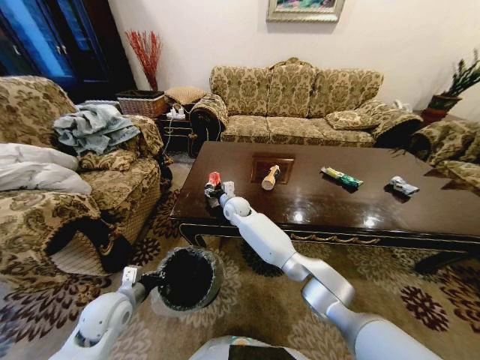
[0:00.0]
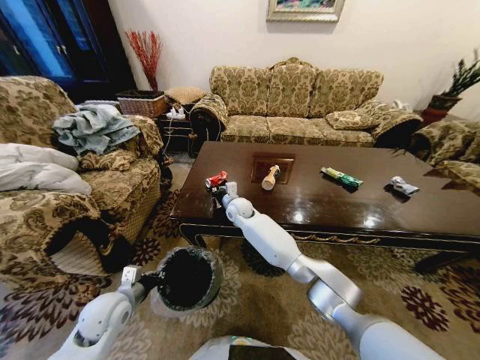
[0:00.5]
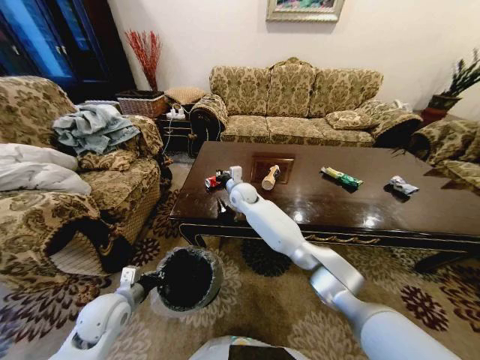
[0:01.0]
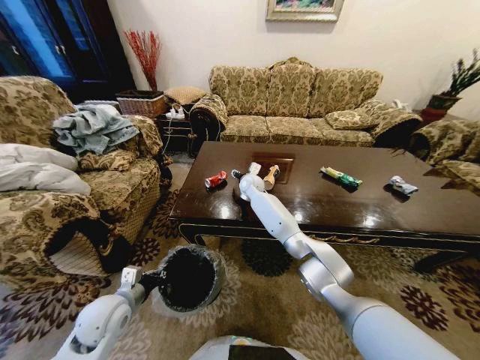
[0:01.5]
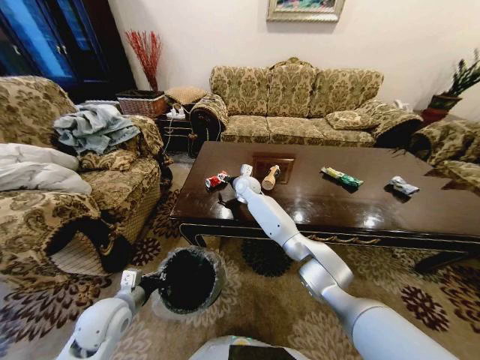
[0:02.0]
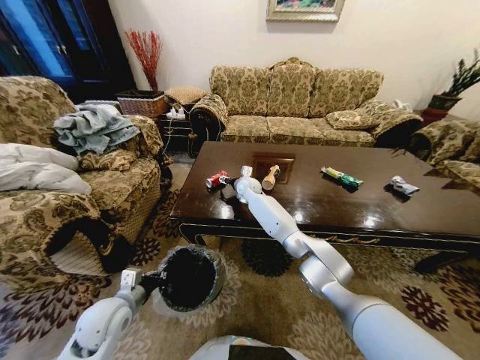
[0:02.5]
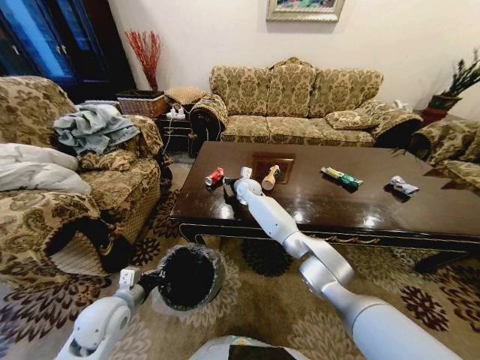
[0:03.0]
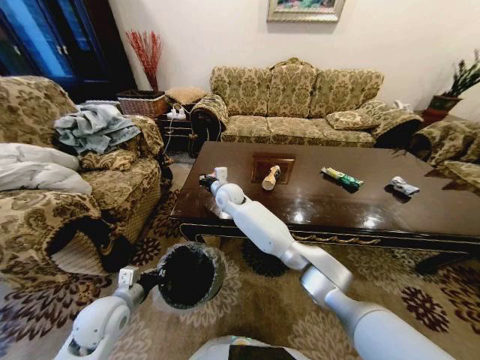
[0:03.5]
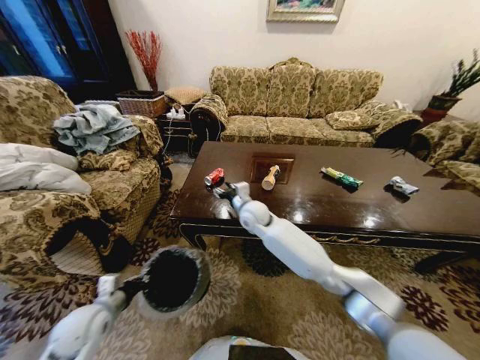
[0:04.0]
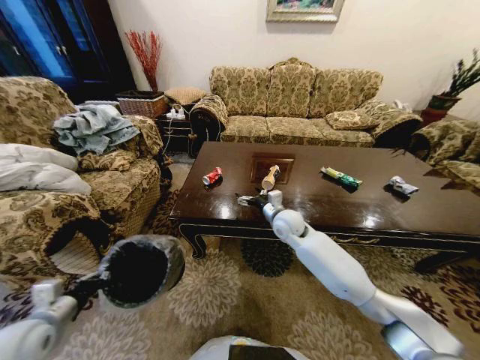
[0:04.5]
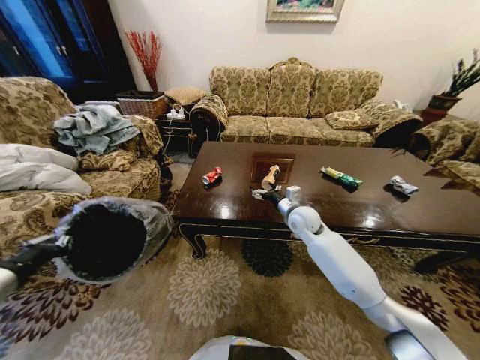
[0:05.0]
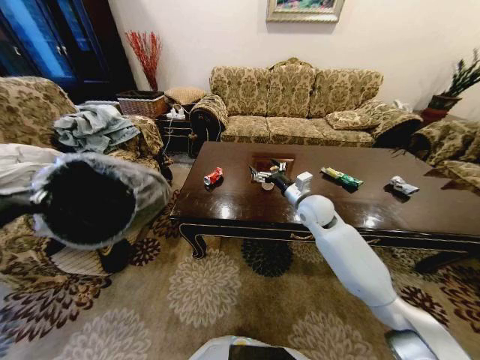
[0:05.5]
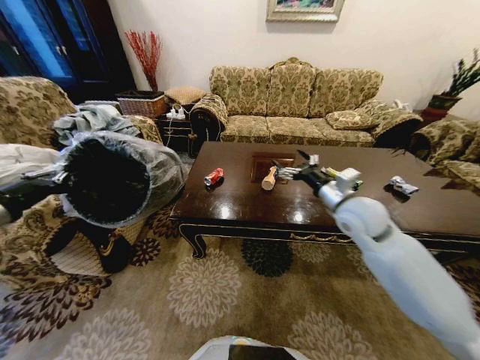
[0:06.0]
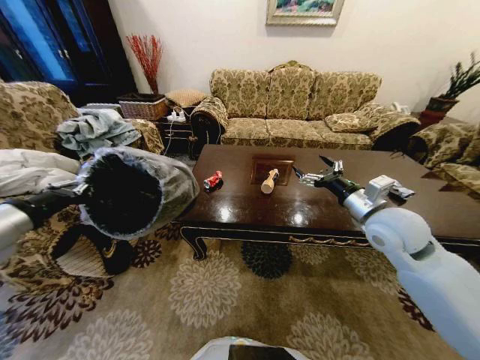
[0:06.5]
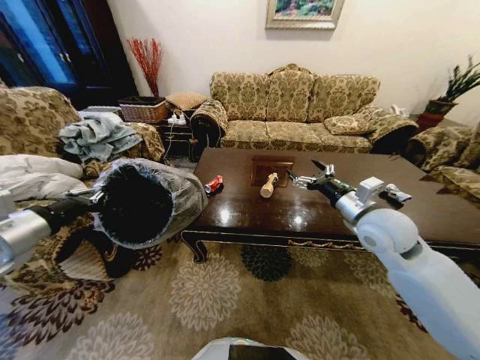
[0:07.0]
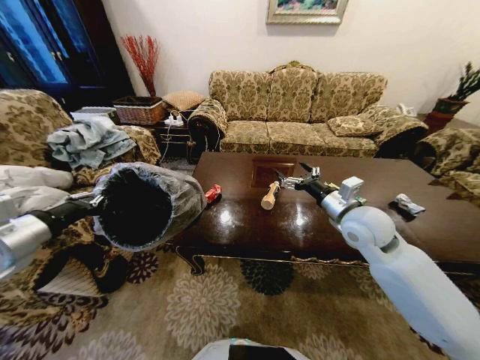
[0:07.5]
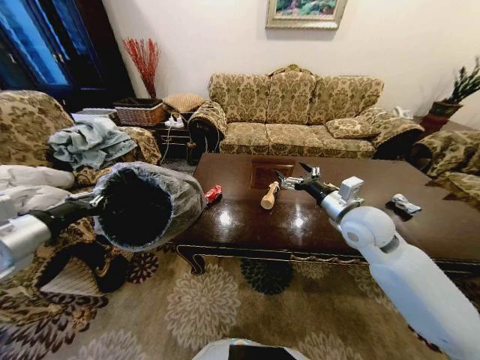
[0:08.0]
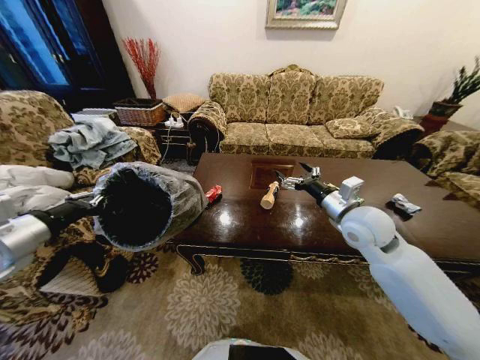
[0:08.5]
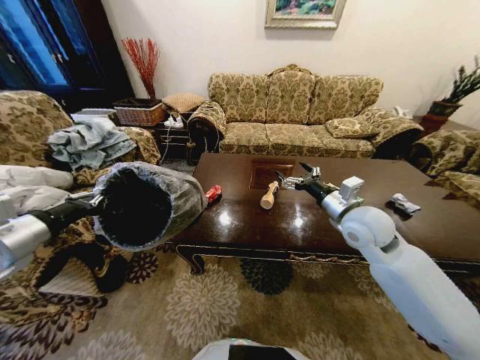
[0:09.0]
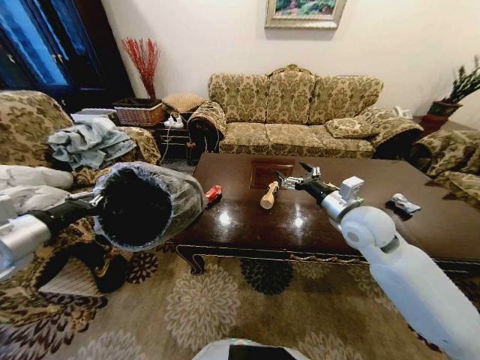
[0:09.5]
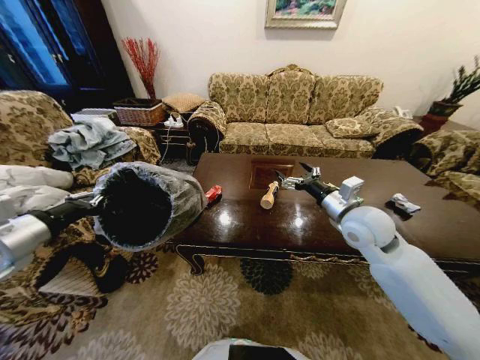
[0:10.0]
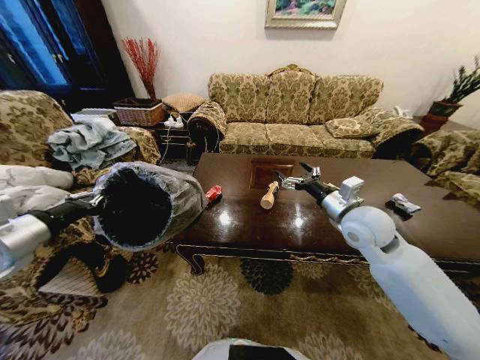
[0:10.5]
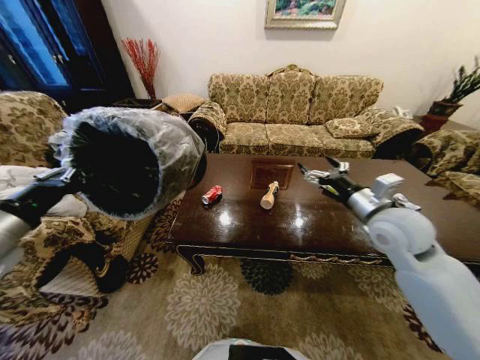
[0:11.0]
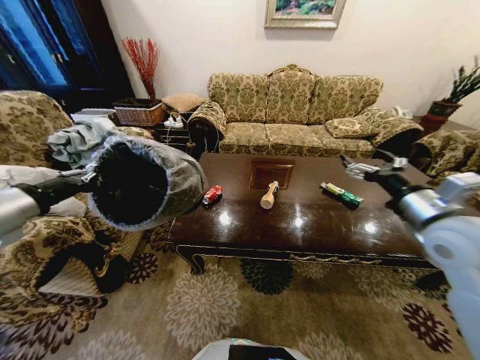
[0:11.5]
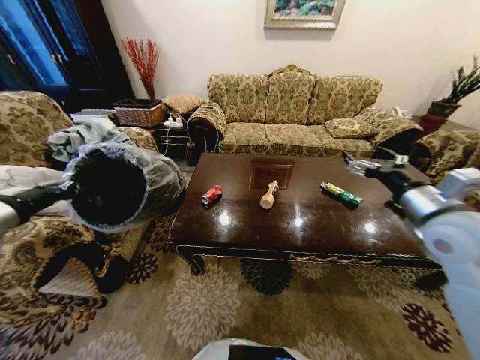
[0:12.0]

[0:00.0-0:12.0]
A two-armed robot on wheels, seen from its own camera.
Task of the whole recording: Move to the front of the table and place the trash on the table into the trash bin.
0:00.0 to 0:02.0: The right gripper is displaced forward by roughly 5 cm, and closes, then opens again.
0:02.0 to 0:04.0: The right gripper goes about 15 cm backward, and closes; the left gripper is displaced to the left by some 5 cm.
0:04.0 to 0:06.0: The right gripper is displaced to the right and upward by approximately 25 cm, and opens its fingers, while the left gripper heads upward, covering about 30 cm.
0:08.0 to 0:10.0: The two grippers keep their place.
0:10.0 to 0:12.0: The right gripper moves to the right, backward and upward, some 15 cm. Meanwhile the left gripper changes place by about 5 cm.

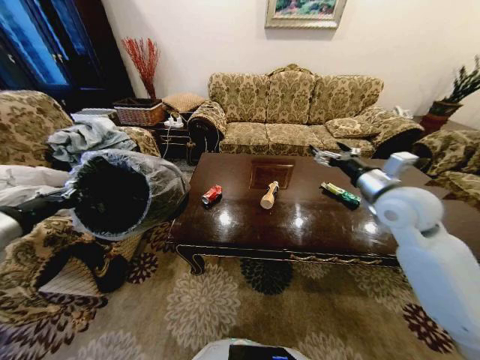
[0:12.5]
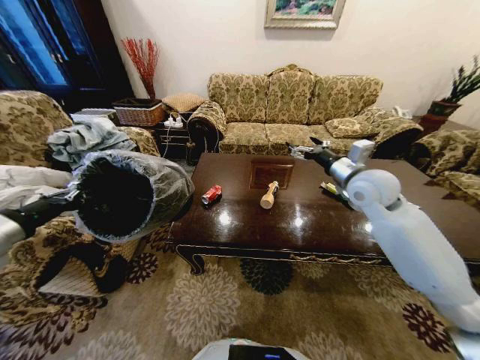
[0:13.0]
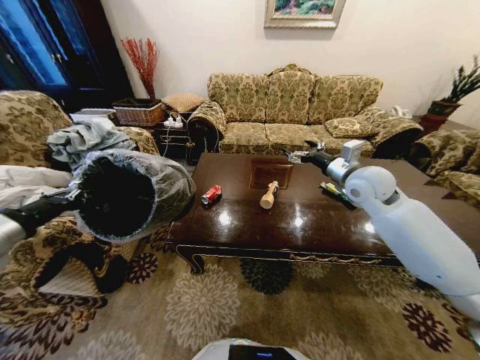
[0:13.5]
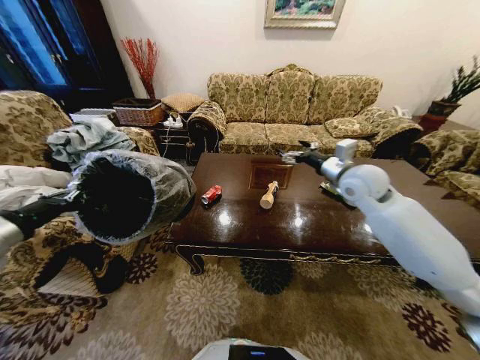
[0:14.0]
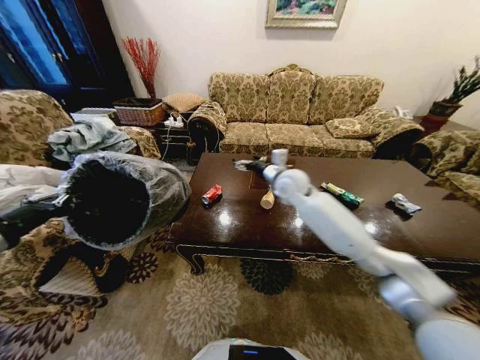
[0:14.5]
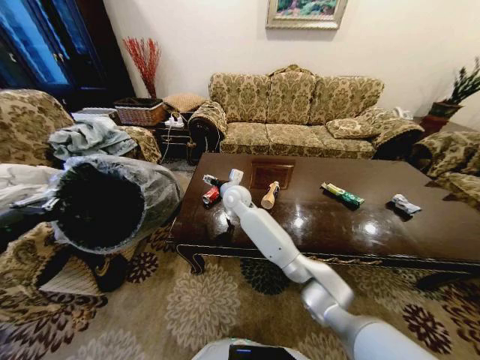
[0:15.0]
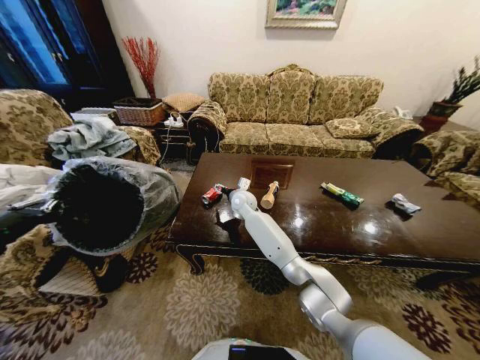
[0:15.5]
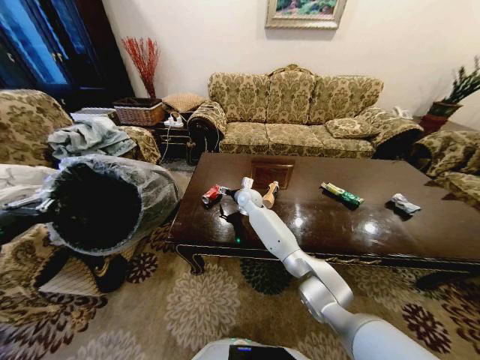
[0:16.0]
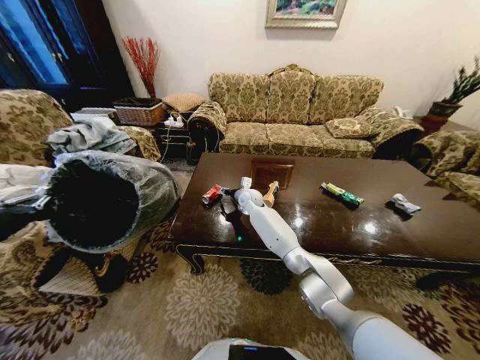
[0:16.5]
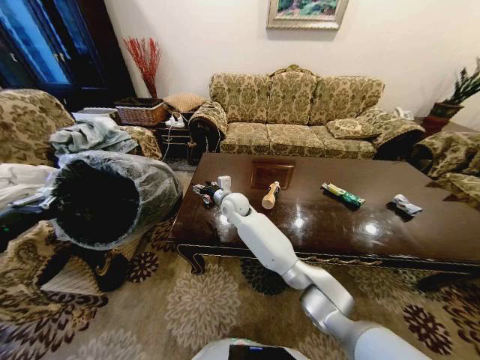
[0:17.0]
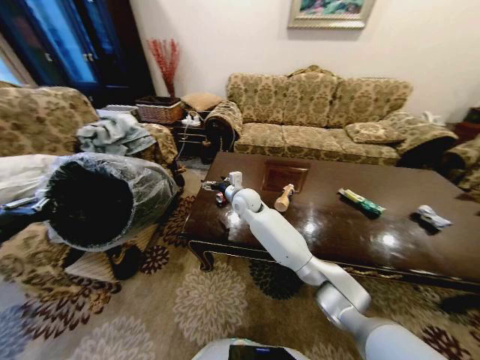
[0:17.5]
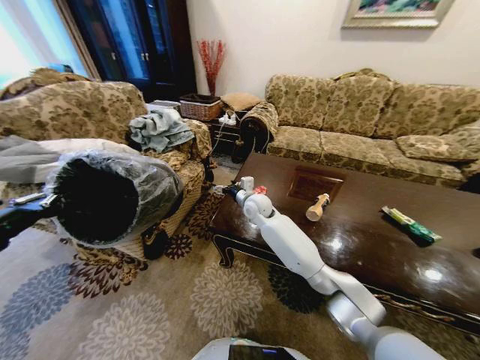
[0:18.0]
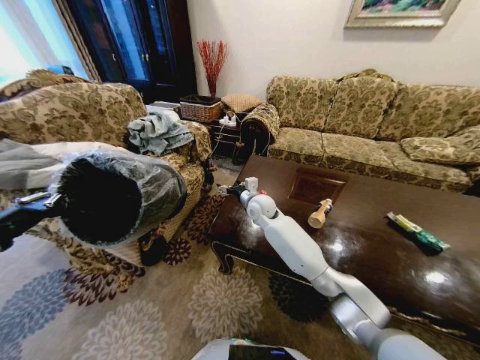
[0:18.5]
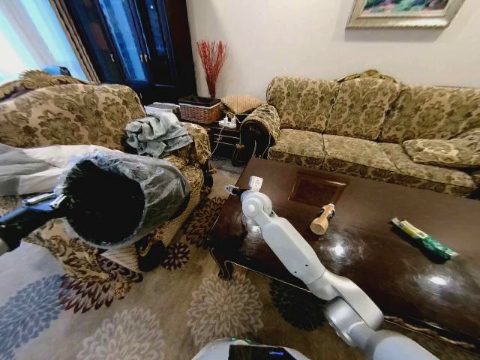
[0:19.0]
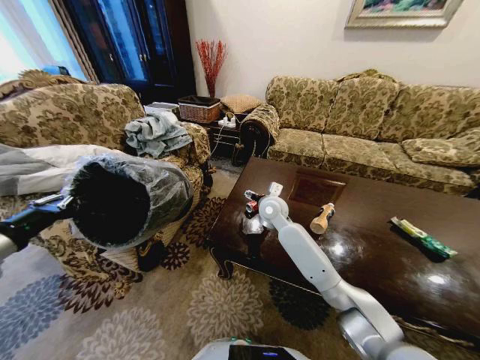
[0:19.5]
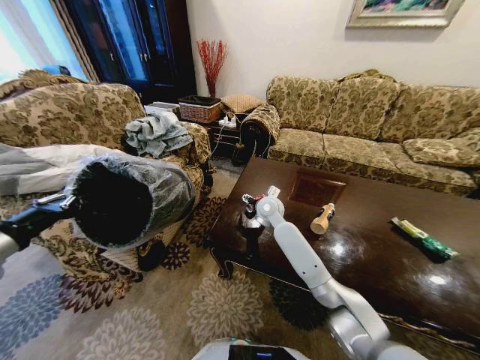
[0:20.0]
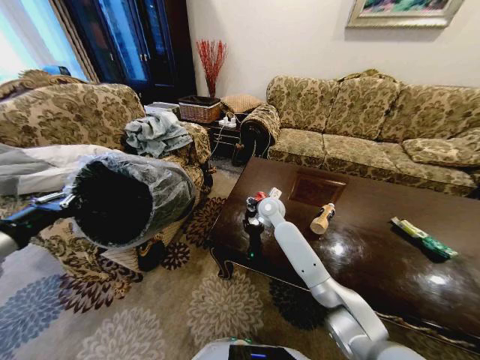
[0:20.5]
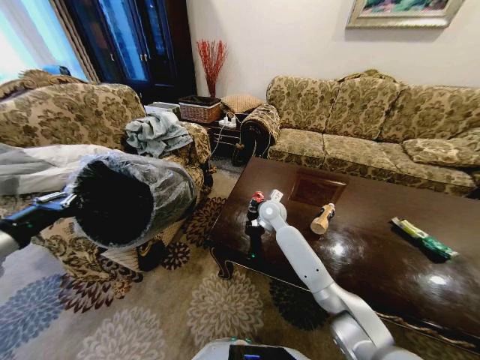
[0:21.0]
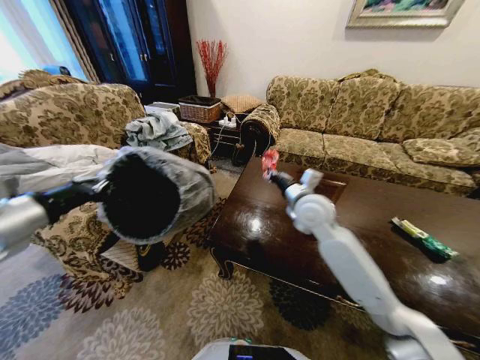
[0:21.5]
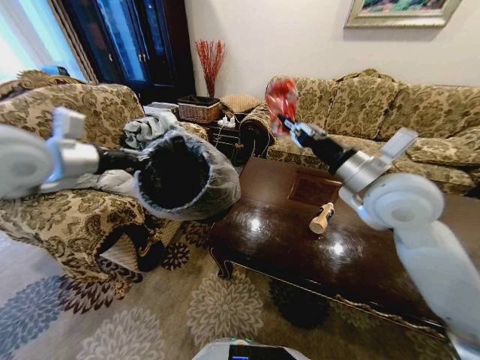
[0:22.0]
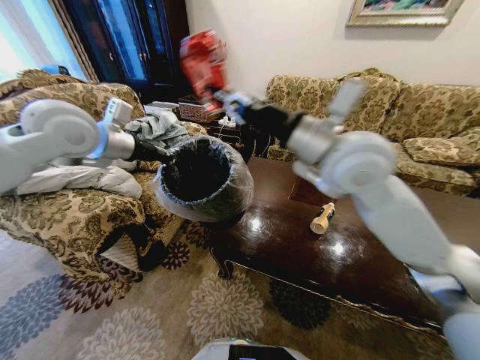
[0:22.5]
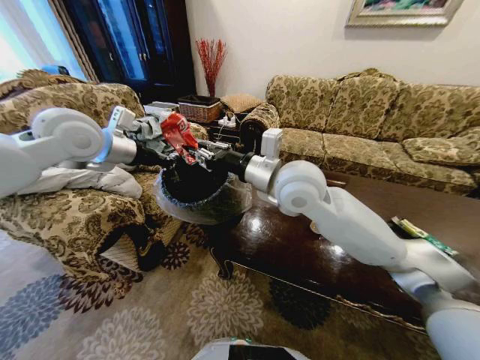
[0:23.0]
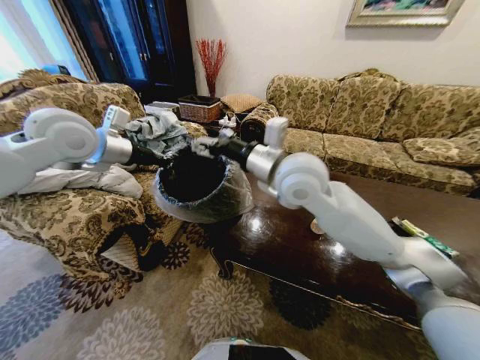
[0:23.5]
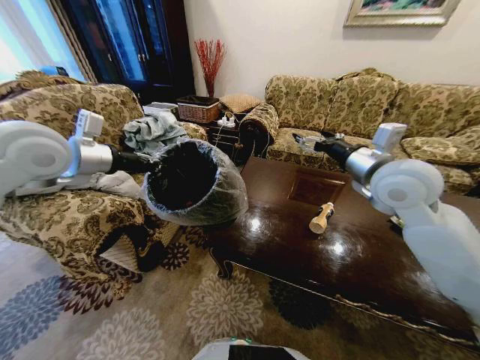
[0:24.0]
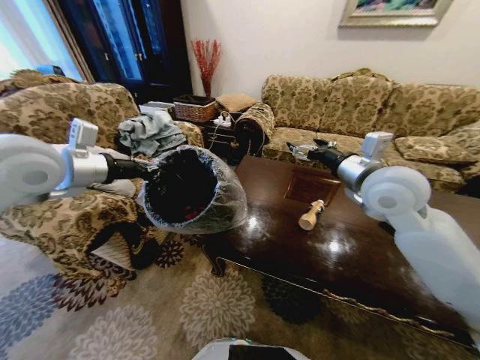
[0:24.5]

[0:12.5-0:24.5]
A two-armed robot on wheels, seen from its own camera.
Task of the whole recording: Move to the front of the table and place the trash on the table into the trash bin.
0:12.5 to 0:14.5: The right gripper is displaced to the left and forward by about 25 cm.
0:14.5 to 0:16.5: The right gripper moves downward, to the left and forward, some 20 cm, and closes its fingers.
0:16.5 to 0:18.5: The right gripper is displaced backward by approximately 10 cm, moves about 5 cm to the left and comes back, and opens its fingers.
0:20.5 to 0:22.5: The left gripper travels forward, to the right and upward by about 30 cm; the right gripper heads upward and backward, covering roughly 35 cm, and closes.
0:22.5 to 0:24.5: The right gripper is displaced to the right and downward by roughly 15 cm, and opens. Meanwhile the left gripper shifts some 5 cm backward.

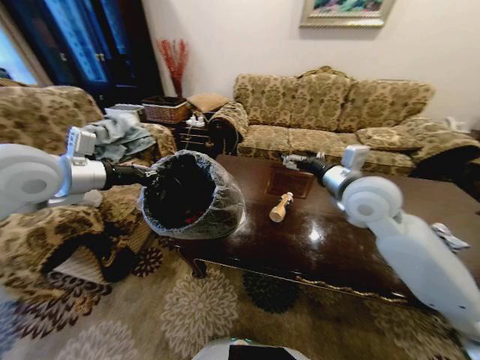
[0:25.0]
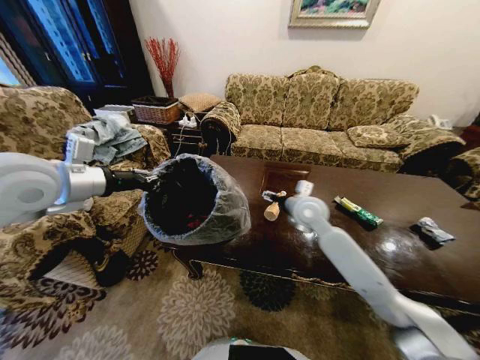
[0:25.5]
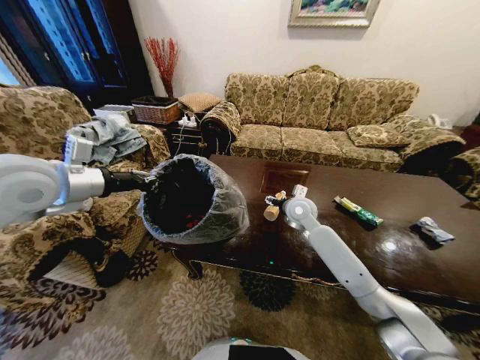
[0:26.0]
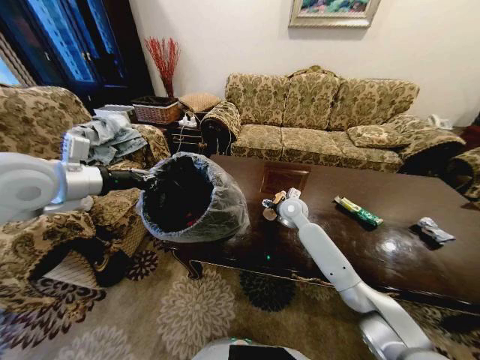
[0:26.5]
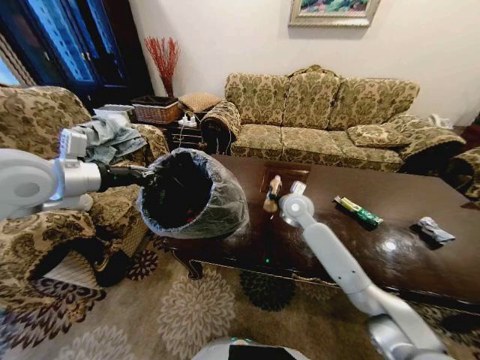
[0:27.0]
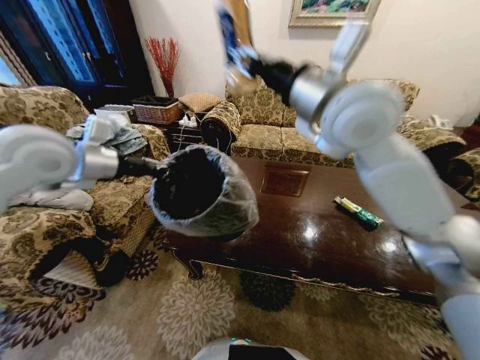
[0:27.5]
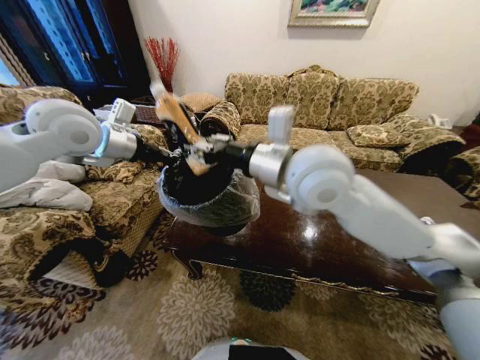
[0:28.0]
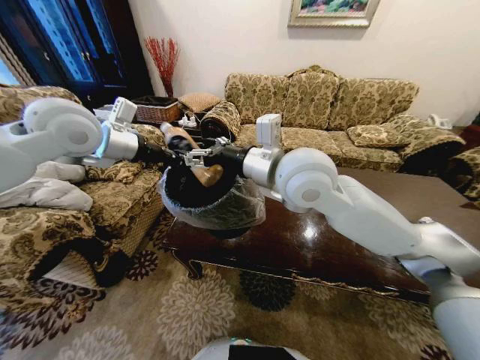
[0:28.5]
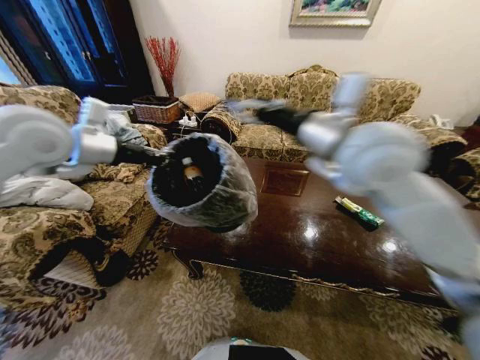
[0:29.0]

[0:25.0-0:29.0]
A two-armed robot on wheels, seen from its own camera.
Task of the whole recording: Move to the front of the table and place the trash on the table into the trash bin.
0:25.0 to 0:27.0: The right gripper is displaced downward, forward and to the left by approximately 20 cm, and closes its fingers.
0:27.0 to 0:29.0: The right gripper moves up and down over about 30 cm, changing direction 2 times, and opens its fingers.
